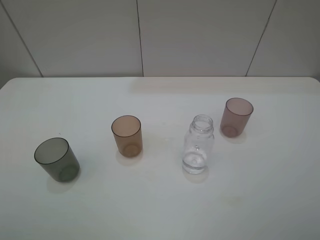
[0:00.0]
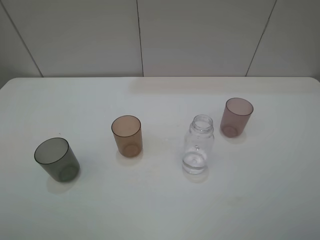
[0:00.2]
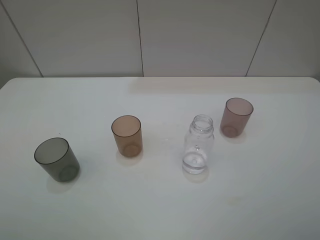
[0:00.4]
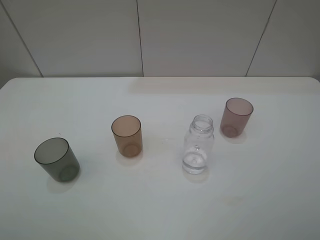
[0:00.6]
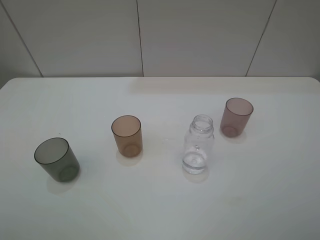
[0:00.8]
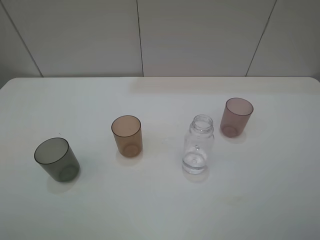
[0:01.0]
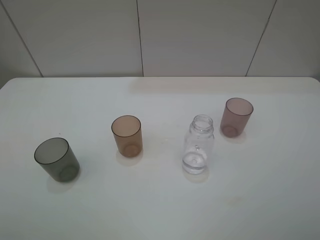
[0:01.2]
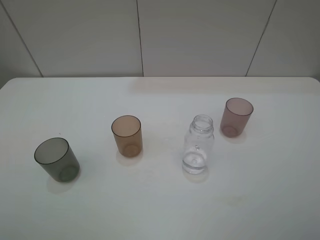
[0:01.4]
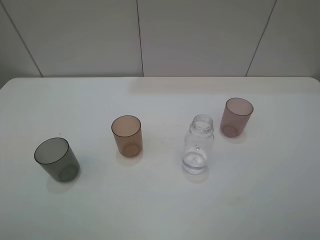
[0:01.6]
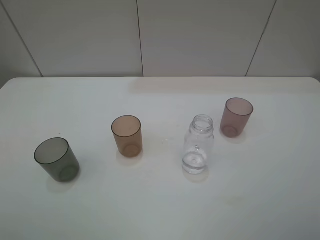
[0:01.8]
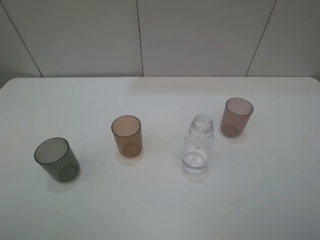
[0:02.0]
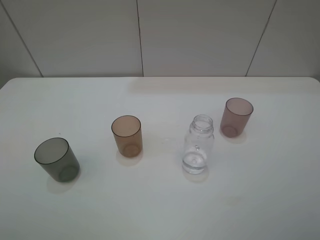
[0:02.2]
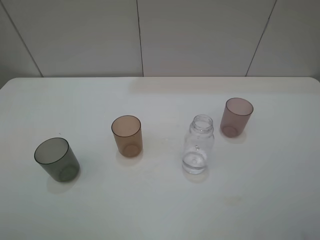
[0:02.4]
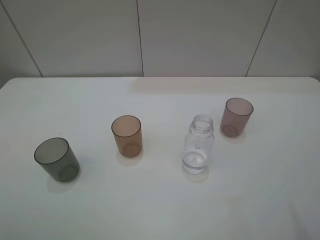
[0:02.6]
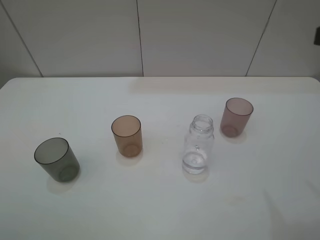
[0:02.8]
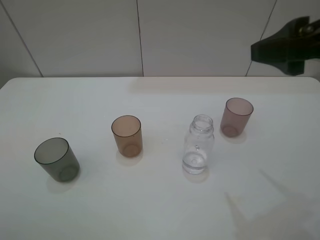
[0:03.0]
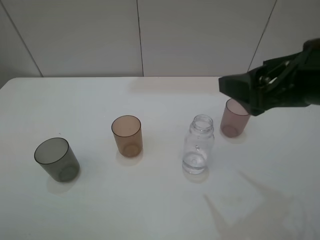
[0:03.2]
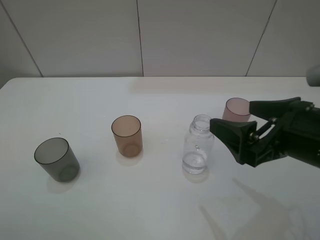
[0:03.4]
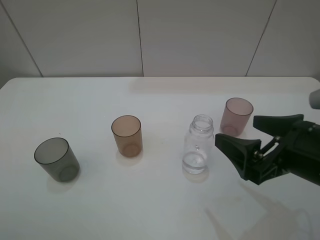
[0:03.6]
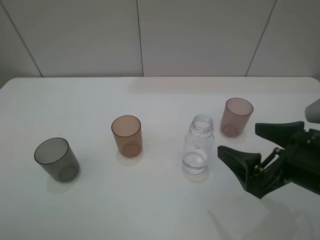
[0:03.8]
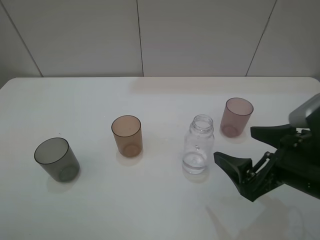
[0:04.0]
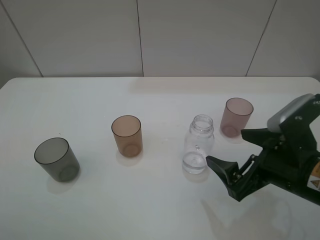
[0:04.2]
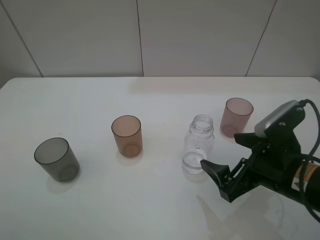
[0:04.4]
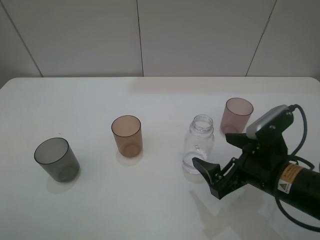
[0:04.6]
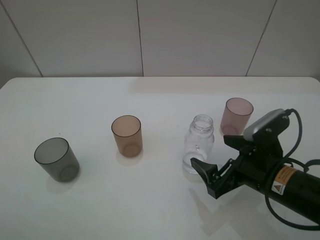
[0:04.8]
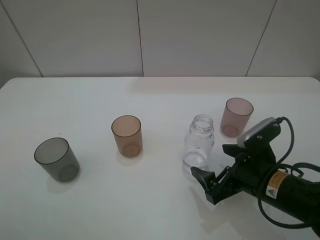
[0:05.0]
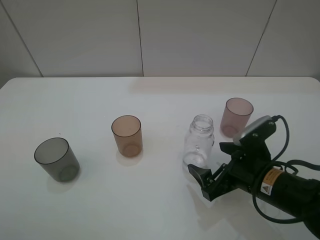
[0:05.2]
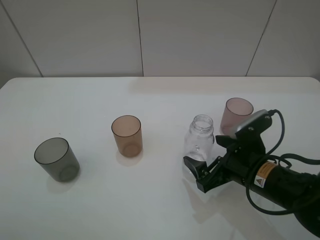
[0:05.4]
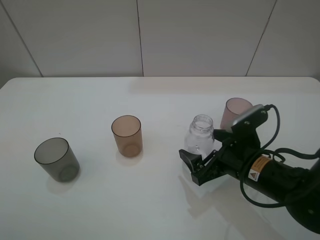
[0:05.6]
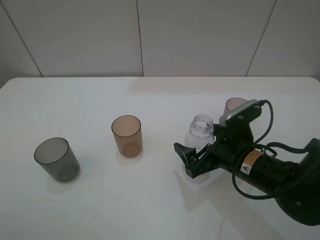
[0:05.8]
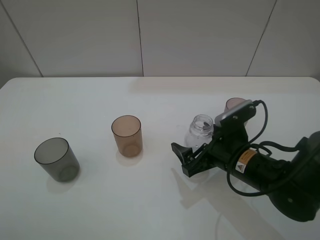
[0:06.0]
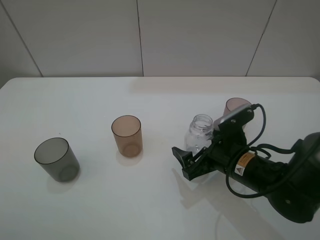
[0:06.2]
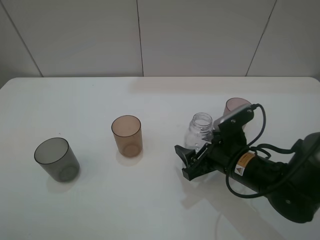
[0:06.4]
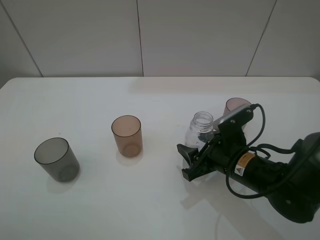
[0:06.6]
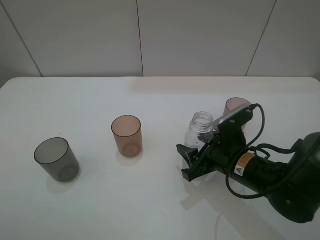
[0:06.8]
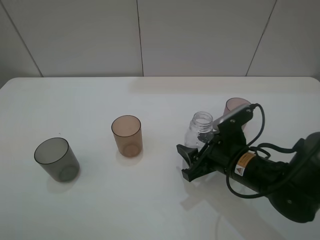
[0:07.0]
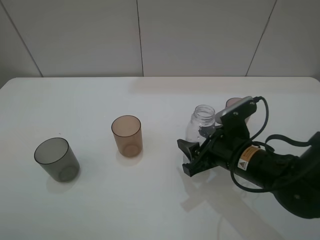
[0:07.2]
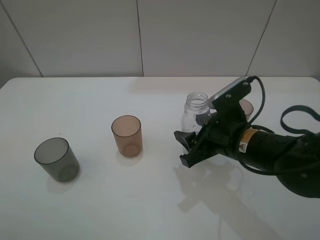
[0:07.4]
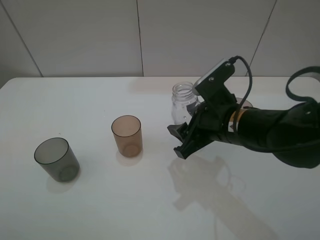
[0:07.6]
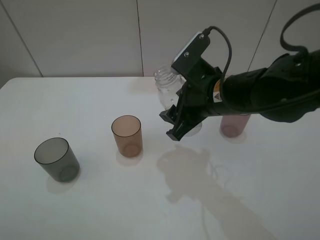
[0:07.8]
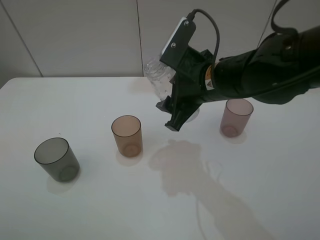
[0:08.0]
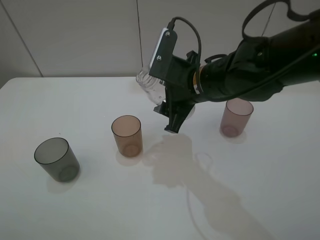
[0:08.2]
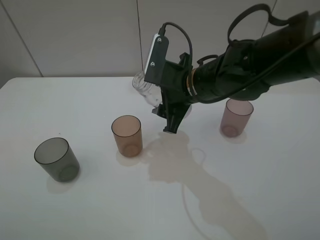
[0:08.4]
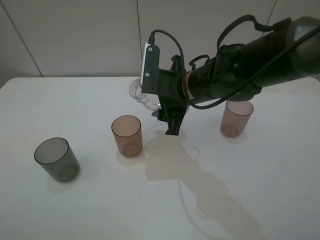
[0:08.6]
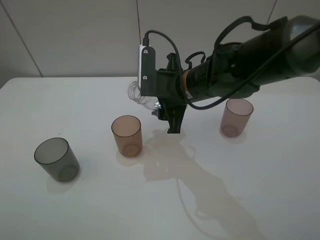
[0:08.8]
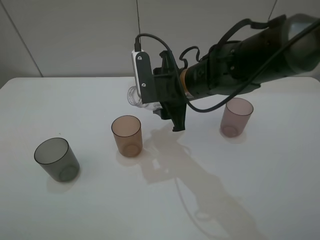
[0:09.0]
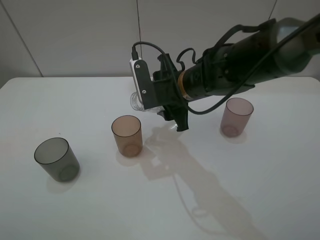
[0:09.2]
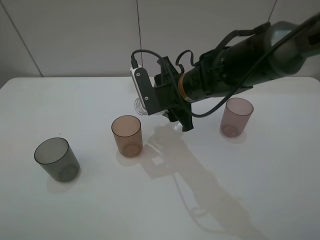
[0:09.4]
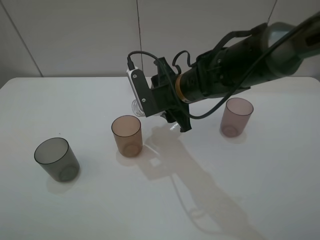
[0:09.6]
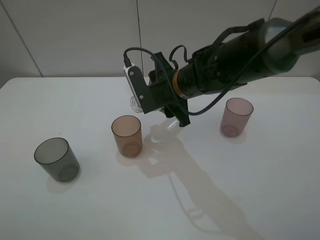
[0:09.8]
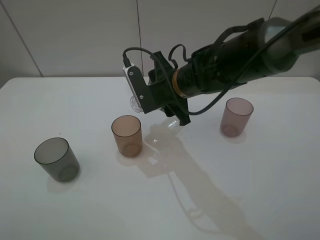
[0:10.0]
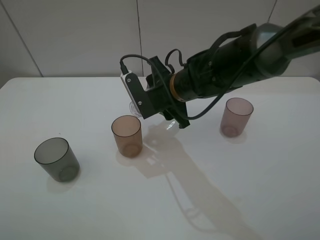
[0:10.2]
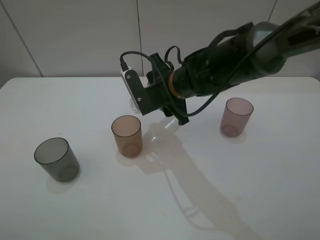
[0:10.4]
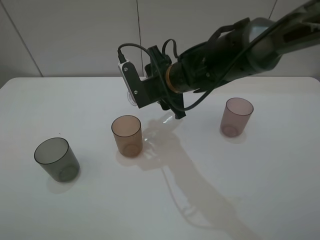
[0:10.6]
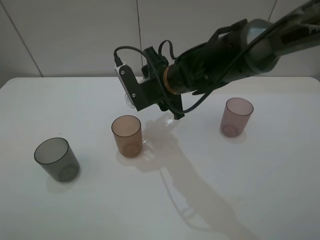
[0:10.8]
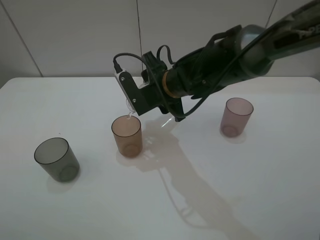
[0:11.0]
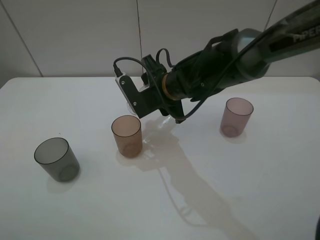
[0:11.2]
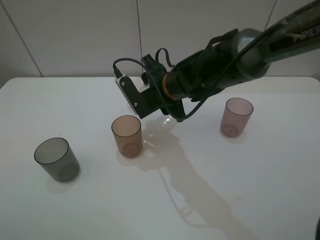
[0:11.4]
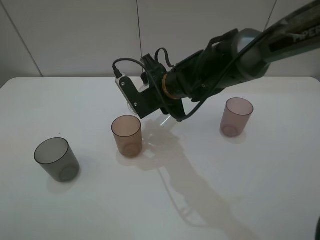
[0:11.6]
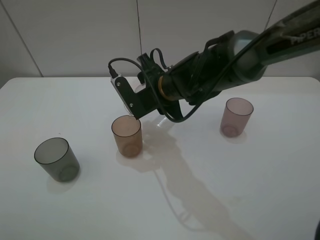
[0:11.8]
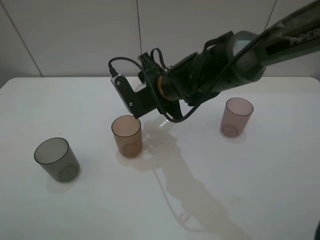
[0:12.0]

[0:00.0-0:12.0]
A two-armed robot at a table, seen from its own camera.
Task of the whole recording: pick up the bottle filled with water and pour water into the middle cup of the three cups.
Step, 0:00.0 to 0:06.8: Grasp the transparent bottle with the right gripper.
0:00.0 to 0:01.6: The two grippers keep their place.
0:01.6 to 0:03.0: The right gripper goes approximately 20 cm forward and to the left.
0:03.0 to 0:04.4: The right gripper shifts approximately 20 cm downward.
0:04.4 to 0:06.0: The right gripper is displaced forward and downward by roughly 10 cm.
0:06.0 to 0:07.6: The right gripper moves upward, roughly 5 cm, and closes.
0:07.6 to 0:09.0: The right gripper travels forward and to the left by approximately 10 cm.
0:10.4 to 0:12.0: The grippers move only a little.

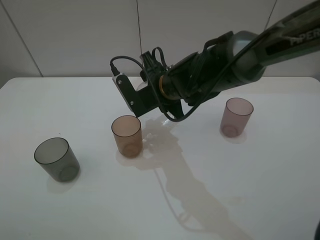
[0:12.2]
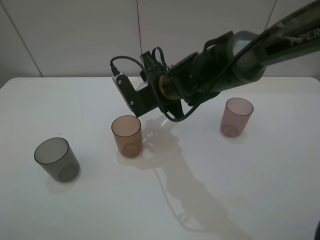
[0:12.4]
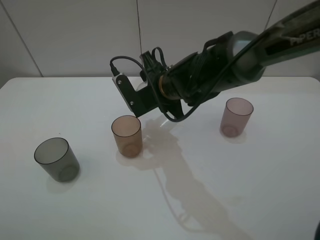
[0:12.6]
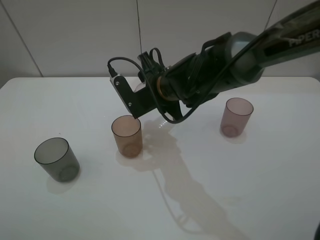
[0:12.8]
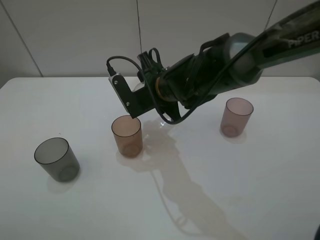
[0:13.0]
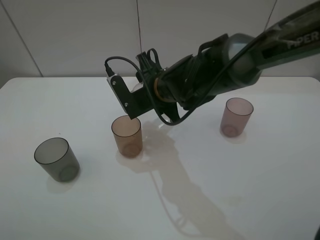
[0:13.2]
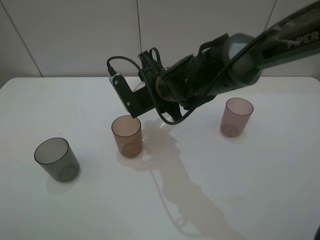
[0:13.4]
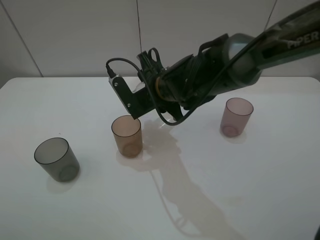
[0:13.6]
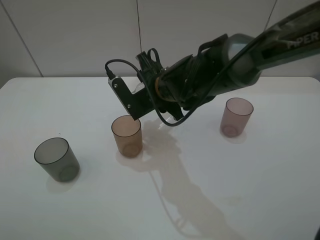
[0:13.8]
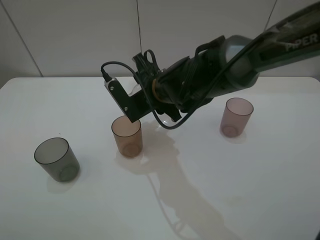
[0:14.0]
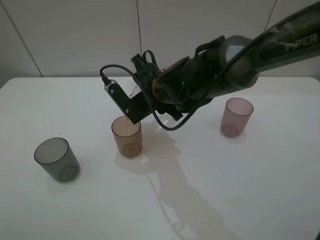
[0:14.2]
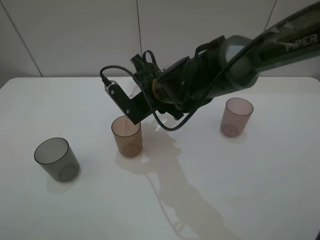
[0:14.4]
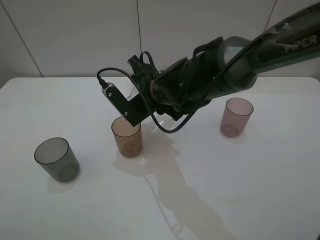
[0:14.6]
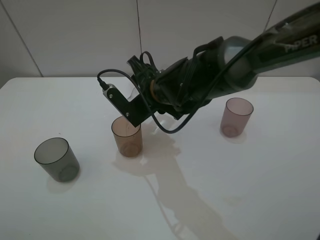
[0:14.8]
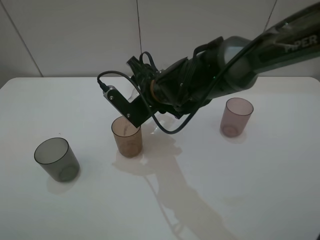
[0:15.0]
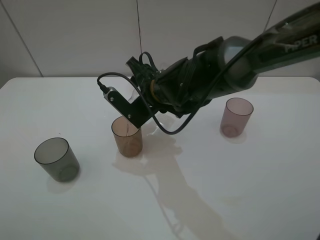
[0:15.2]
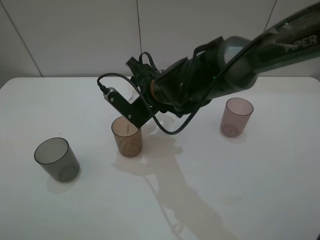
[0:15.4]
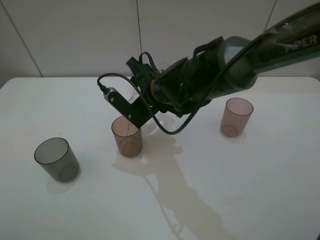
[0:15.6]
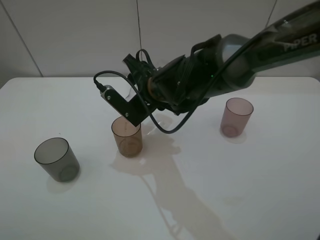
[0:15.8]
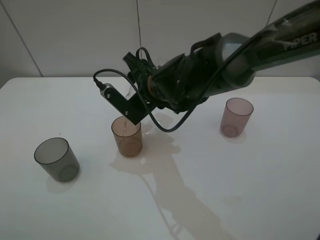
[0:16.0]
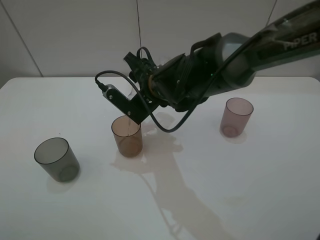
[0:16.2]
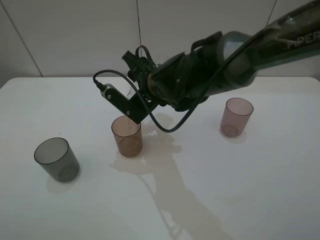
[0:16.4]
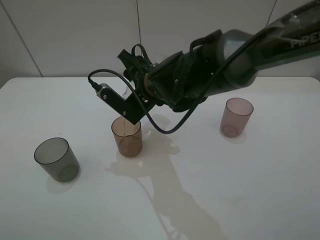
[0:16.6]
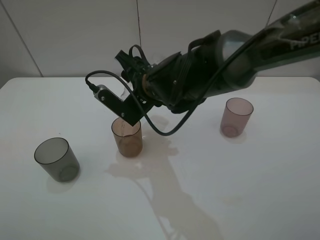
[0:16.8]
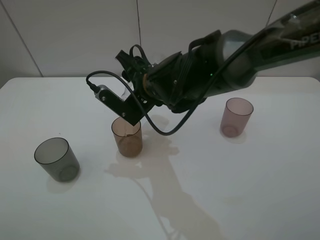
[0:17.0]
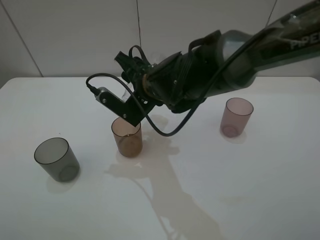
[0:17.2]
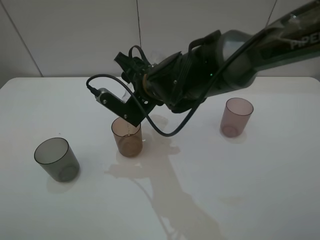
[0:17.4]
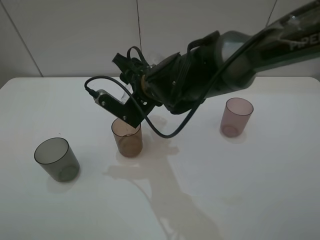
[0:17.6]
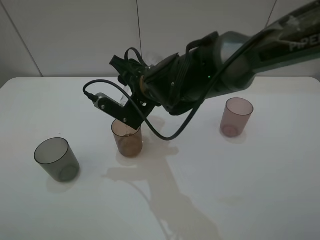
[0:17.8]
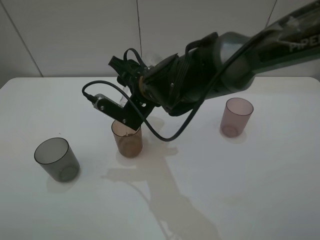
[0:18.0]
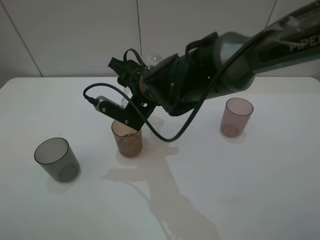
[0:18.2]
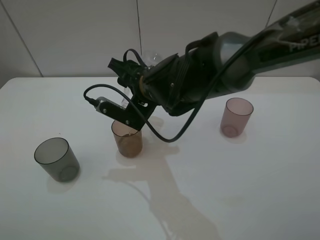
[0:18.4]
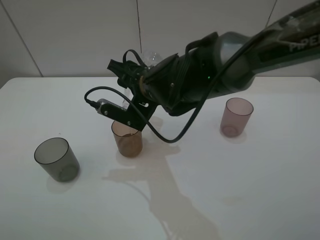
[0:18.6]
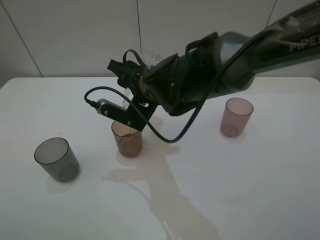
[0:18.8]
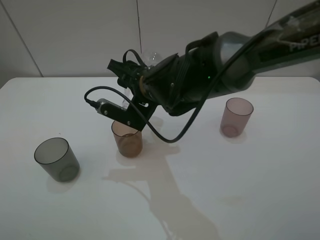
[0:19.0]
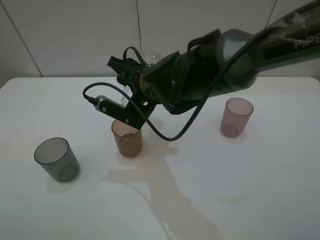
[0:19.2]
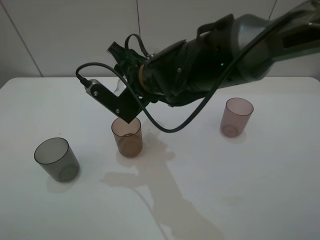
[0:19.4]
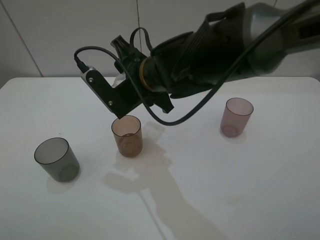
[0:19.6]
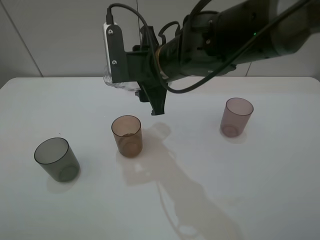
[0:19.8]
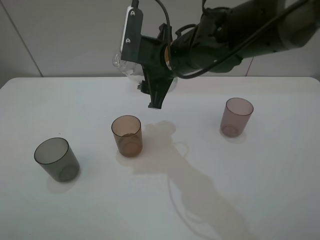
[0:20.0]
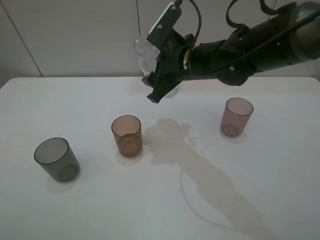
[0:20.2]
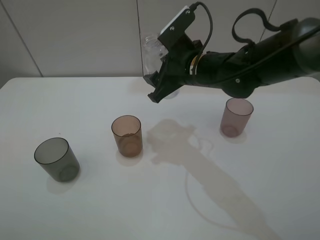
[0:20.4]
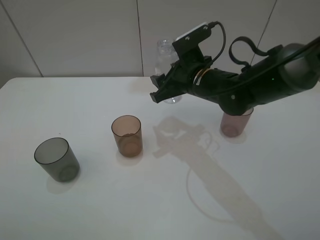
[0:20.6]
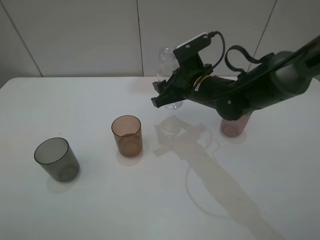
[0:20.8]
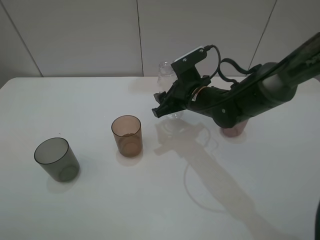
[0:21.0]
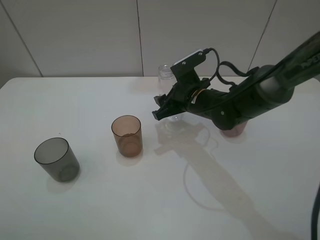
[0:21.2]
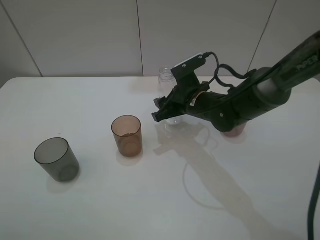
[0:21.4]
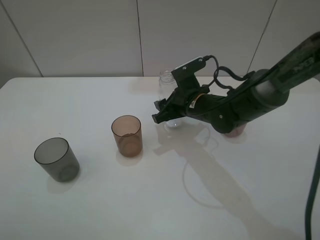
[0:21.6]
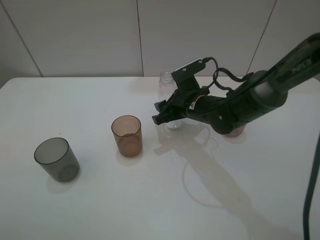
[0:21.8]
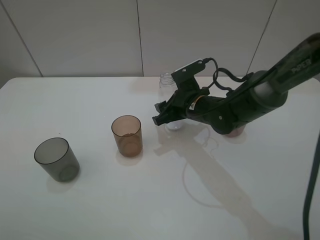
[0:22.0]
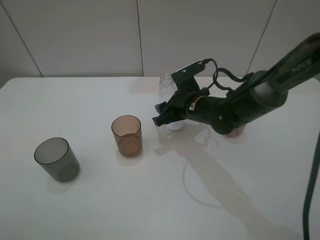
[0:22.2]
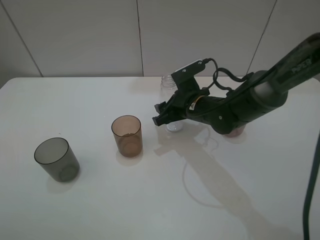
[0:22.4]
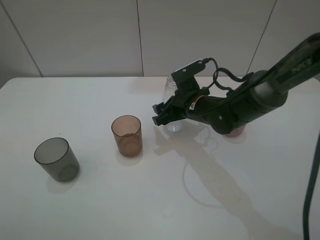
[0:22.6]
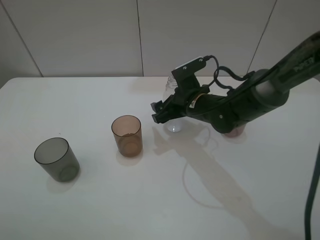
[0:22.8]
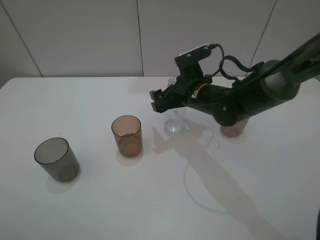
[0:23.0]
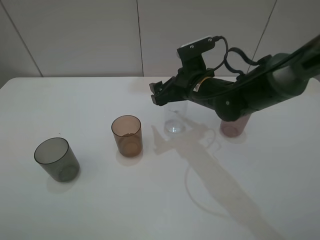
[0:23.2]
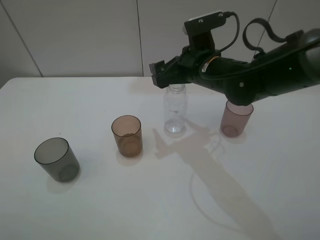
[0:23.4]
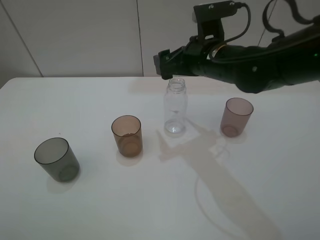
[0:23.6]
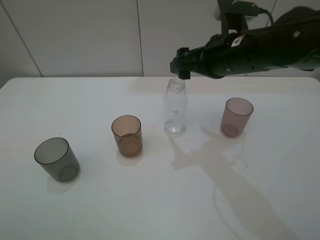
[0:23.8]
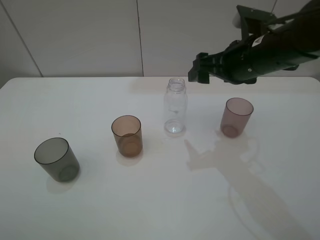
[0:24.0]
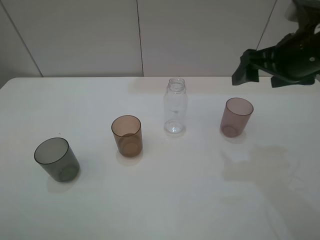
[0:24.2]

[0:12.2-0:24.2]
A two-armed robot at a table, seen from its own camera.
Task of the whole recording: pick up the bottle filled with water and pour water into the middle cup of the three cups.
Step, 0:12.2 to 0:20.4: Pour water from transparent bottle tobrown cup with the right gripper.
Step, 0:20.6 to 0:23.2: Place the transparent bottle with the right gripper.
0:12.2 to 0:13.8: Both grippers stay put.
0:13.8 to 0:16.6: The grippers make only small movements.
0:16.6 to 0:18.2: The grippers make only small movements.
0:19.8 to 0:21.2: The right gripper is displaced downward and to the right by approximately 10 cm.
0:21.2 to 0:22.6: The right gripper opens.
0:22.6 to 0:24.2: The right gripper is displaced upward and to the right by some 25 cm, and opens its fingers.
